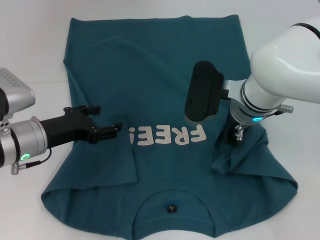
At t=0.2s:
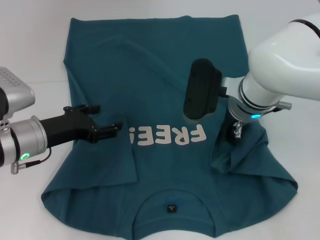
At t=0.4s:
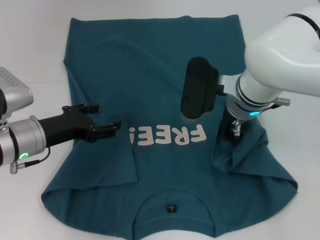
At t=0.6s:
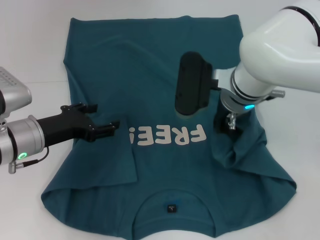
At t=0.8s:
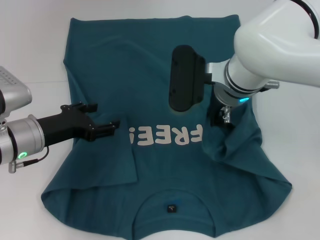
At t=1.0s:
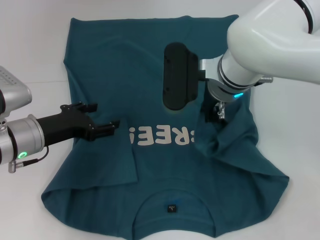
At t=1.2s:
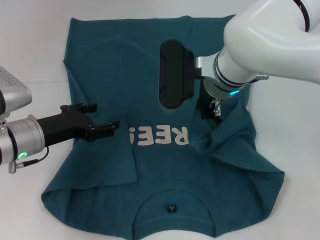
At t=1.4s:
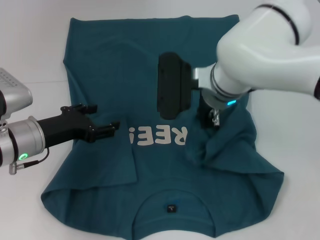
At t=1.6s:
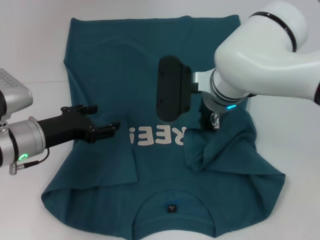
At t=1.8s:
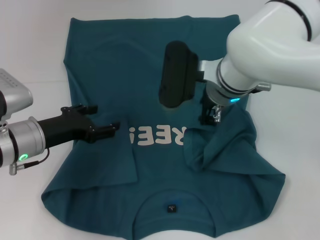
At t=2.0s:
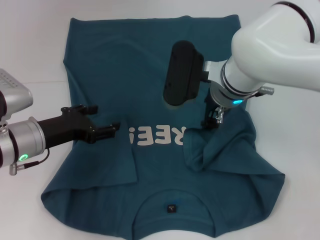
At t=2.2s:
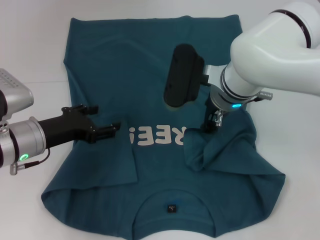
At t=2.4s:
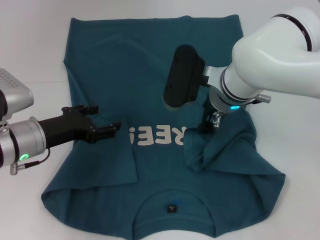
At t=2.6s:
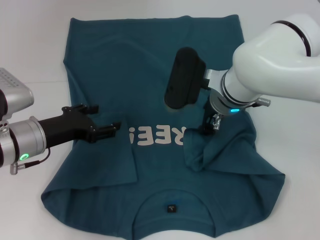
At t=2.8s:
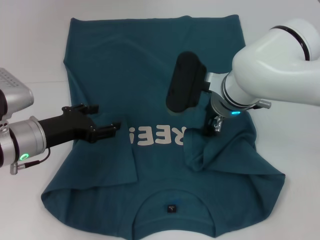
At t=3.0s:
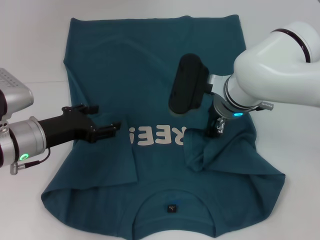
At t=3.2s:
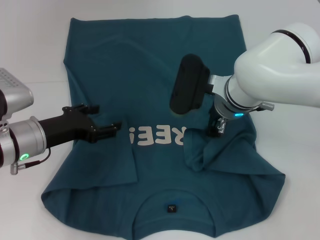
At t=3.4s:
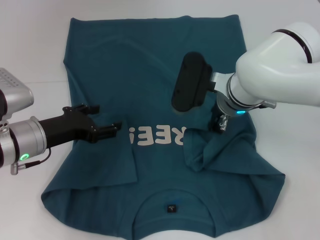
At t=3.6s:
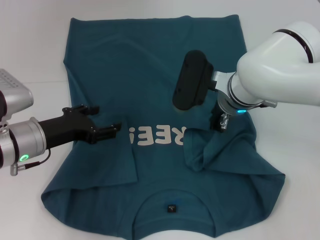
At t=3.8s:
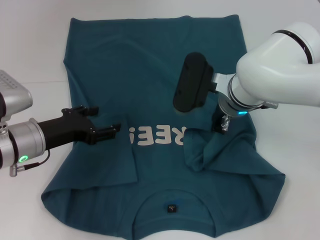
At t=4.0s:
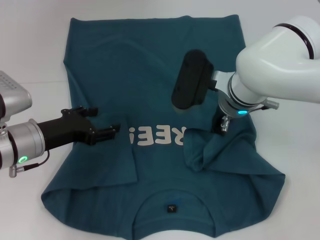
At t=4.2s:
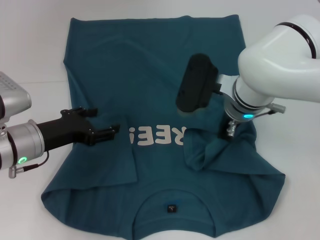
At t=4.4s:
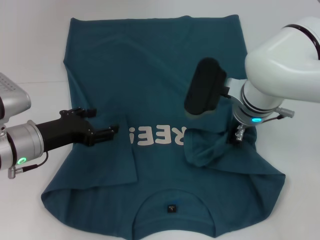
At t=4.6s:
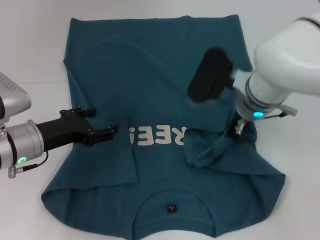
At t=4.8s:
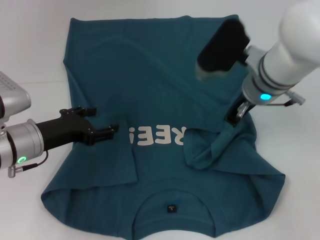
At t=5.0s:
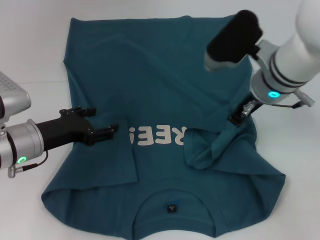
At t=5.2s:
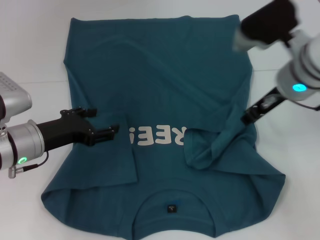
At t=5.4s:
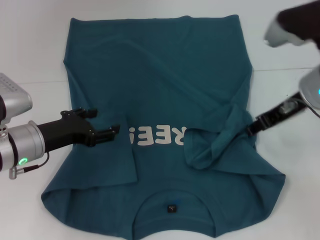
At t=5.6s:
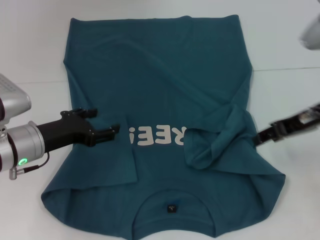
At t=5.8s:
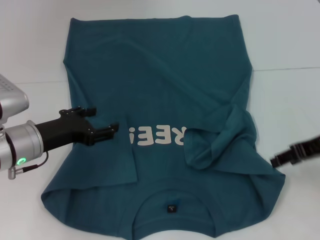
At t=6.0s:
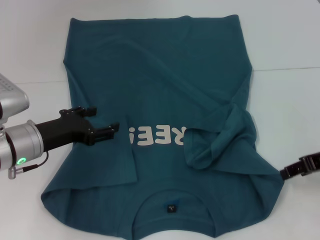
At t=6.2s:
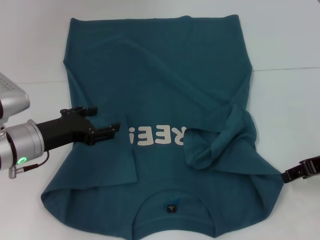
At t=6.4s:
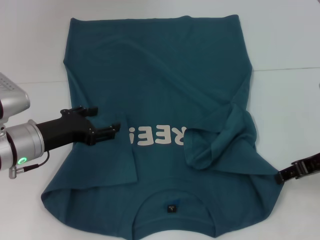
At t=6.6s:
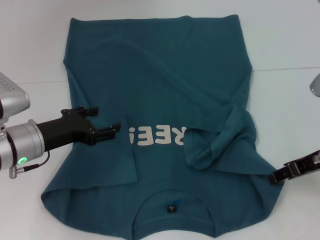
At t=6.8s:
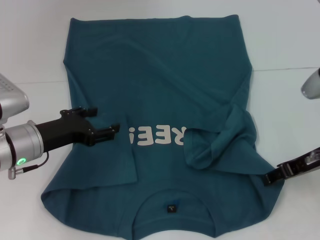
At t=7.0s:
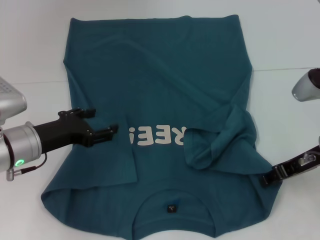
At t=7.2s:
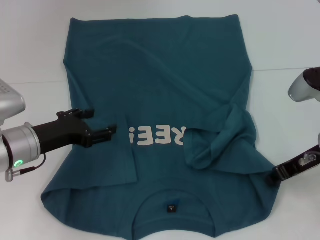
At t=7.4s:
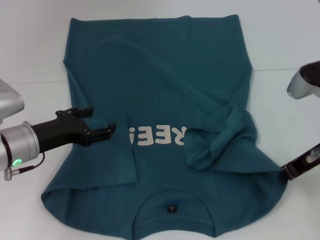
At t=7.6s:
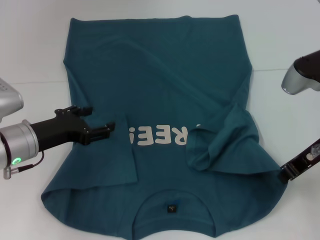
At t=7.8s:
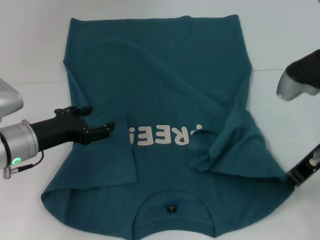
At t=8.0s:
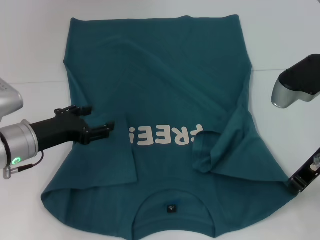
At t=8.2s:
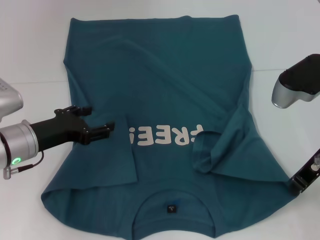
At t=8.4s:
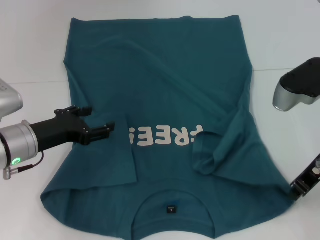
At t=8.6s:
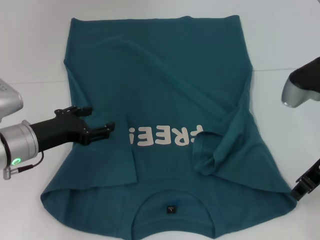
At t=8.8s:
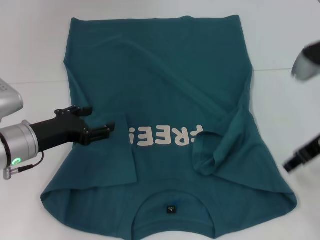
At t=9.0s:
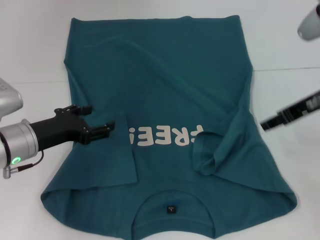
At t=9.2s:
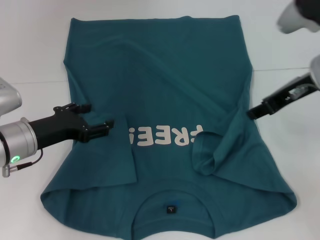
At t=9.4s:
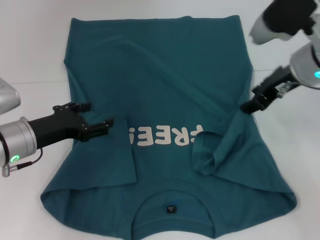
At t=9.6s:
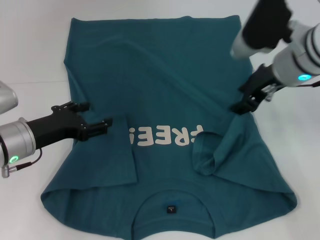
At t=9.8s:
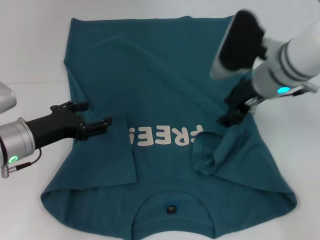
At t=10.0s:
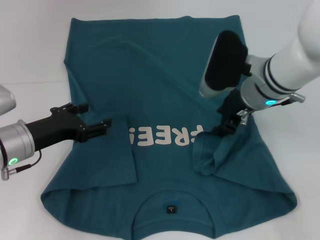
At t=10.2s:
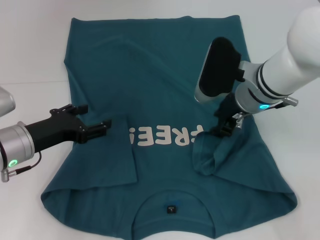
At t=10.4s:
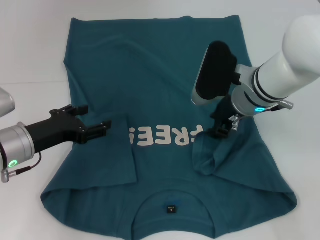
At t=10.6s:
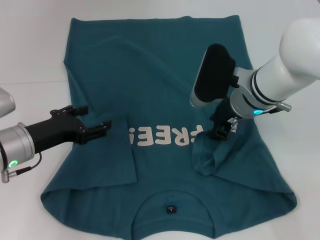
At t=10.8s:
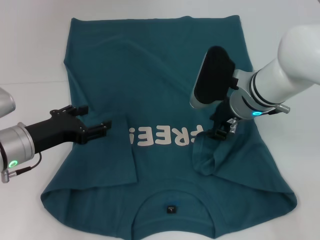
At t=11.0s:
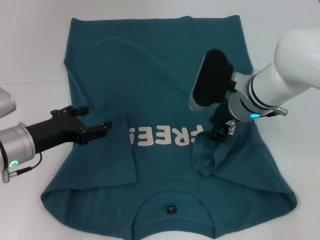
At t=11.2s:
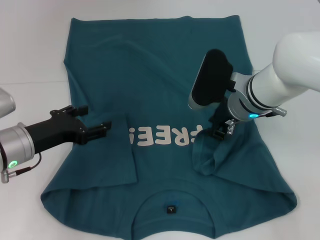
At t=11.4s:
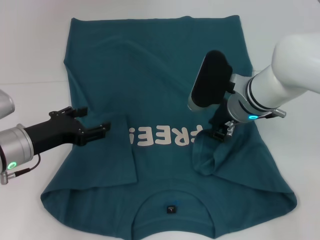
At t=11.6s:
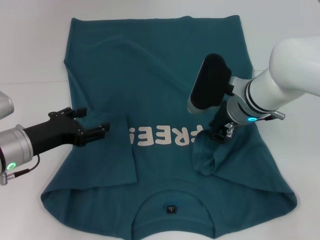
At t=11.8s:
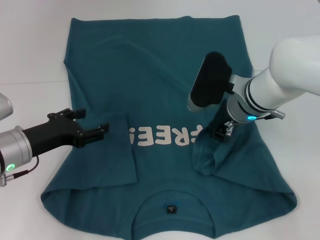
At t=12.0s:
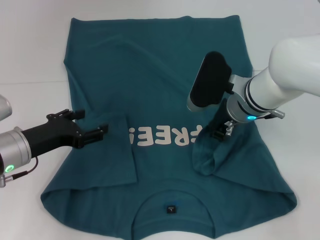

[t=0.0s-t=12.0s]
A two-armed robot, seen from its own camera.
t=0.0s to t=1.6s: The right gripper moves approximately 5 cm.
t=1.6s to t=3.0s: The right gripper opens.
t=3.0s to t=4.4s: The right gripper closes its fingers.
t=4.4s to t=6.0s: The right gripper goes approximately 20 cm to the right and backward, and opens.
t=6.0s to t=7.6s: The right gripper heads to the left, covering about 5 cm, and closes up.
t=7.6s to t=9.0s: The right gripper ends up some 5 cm from where it was, and opens up.
t=9.0s to t=10.4s: The right gripper goes some 15 cm to the left, downward and forward.
t=10.4s to t=12.0s: The grippers make only small movements.

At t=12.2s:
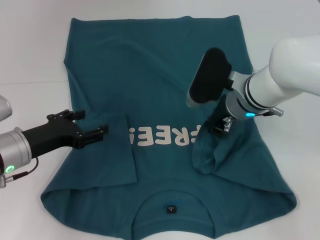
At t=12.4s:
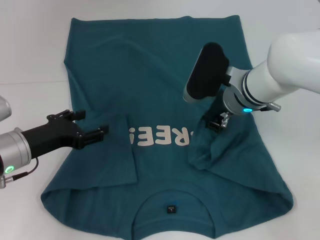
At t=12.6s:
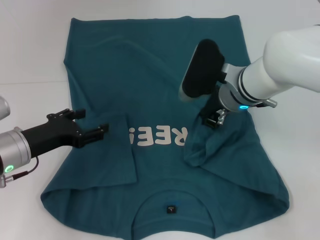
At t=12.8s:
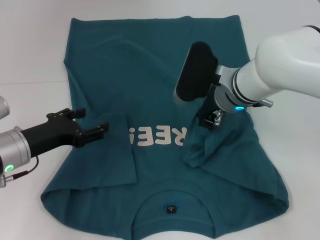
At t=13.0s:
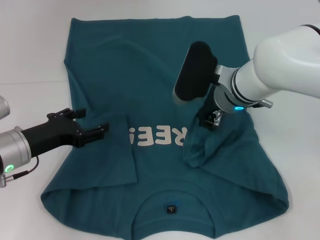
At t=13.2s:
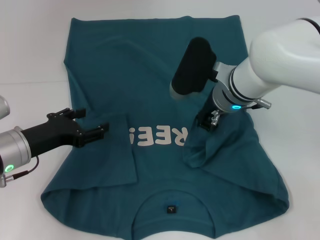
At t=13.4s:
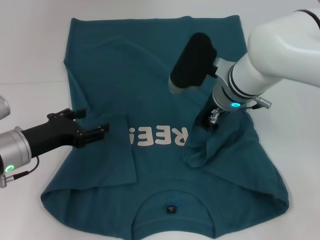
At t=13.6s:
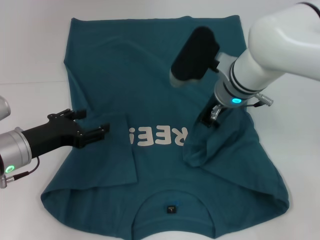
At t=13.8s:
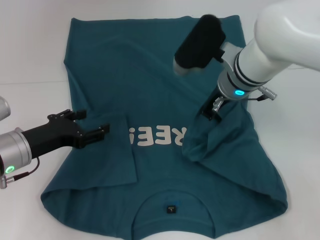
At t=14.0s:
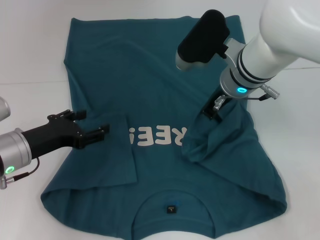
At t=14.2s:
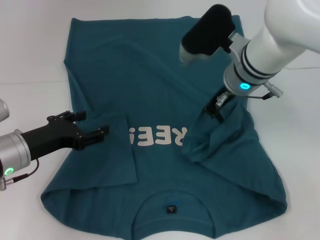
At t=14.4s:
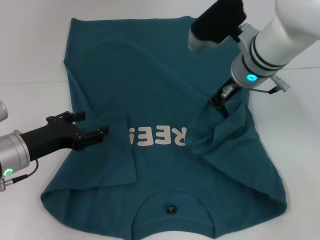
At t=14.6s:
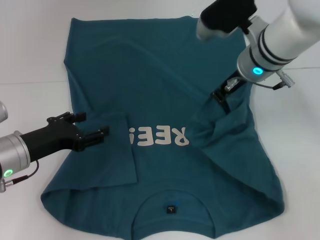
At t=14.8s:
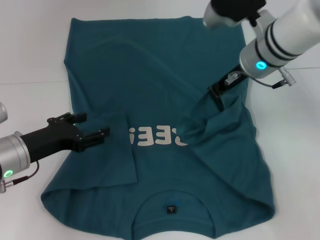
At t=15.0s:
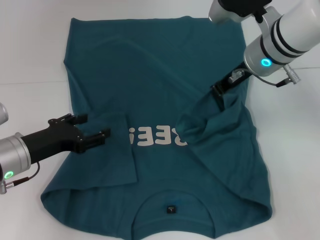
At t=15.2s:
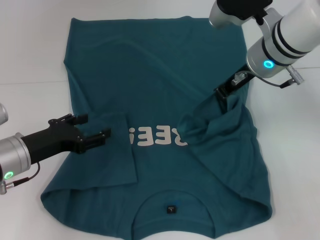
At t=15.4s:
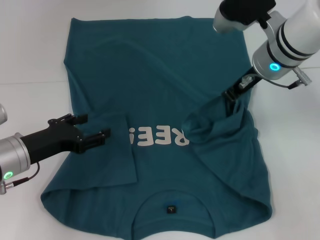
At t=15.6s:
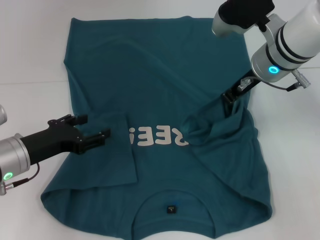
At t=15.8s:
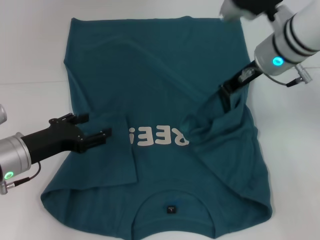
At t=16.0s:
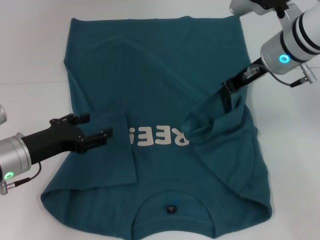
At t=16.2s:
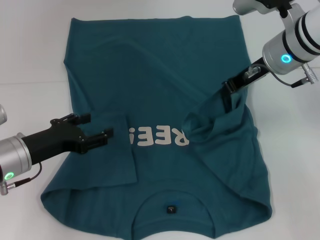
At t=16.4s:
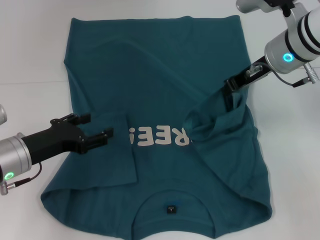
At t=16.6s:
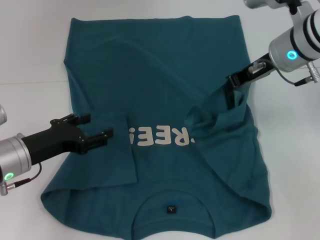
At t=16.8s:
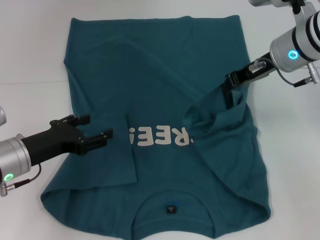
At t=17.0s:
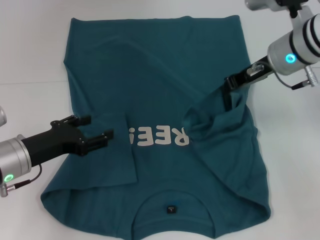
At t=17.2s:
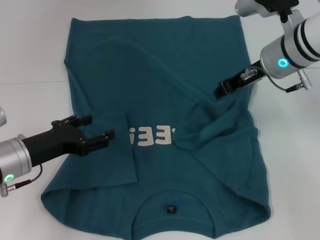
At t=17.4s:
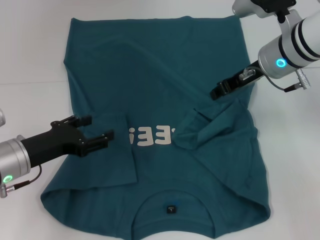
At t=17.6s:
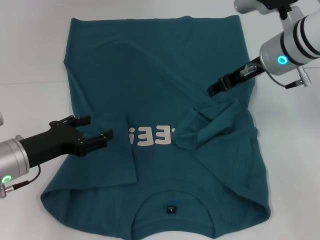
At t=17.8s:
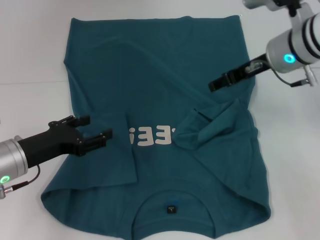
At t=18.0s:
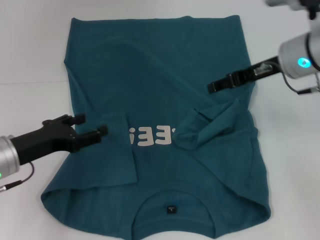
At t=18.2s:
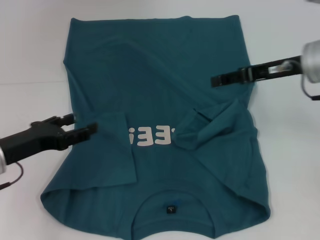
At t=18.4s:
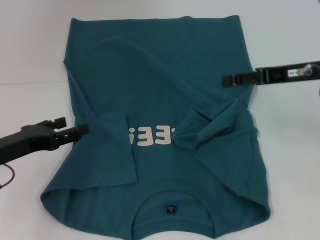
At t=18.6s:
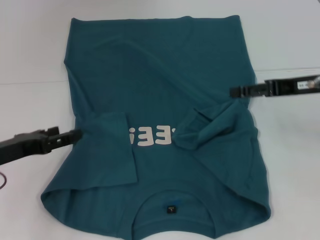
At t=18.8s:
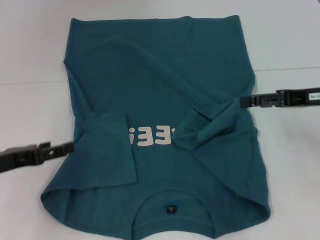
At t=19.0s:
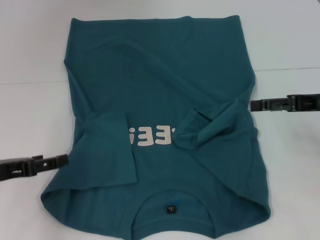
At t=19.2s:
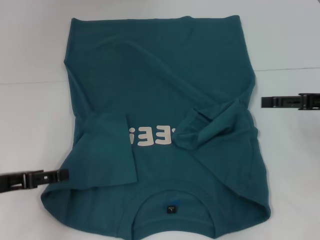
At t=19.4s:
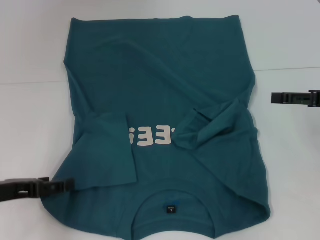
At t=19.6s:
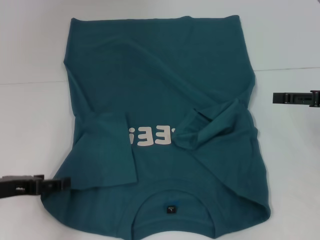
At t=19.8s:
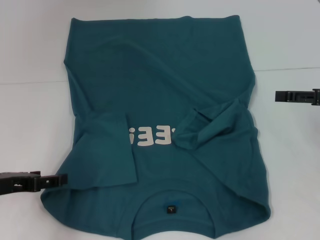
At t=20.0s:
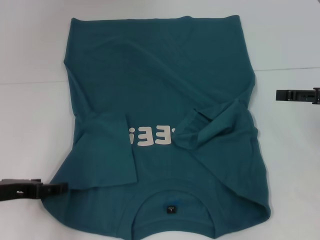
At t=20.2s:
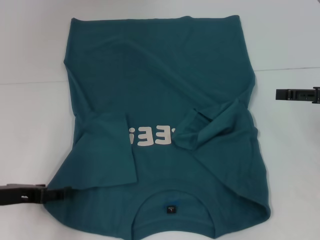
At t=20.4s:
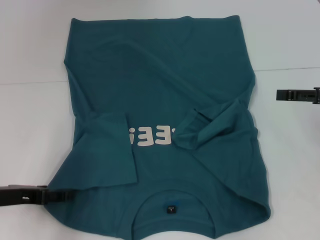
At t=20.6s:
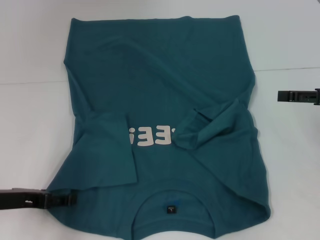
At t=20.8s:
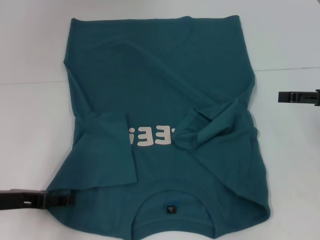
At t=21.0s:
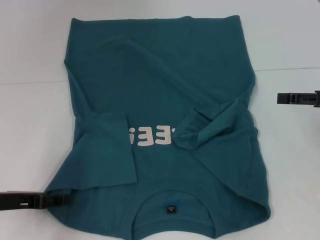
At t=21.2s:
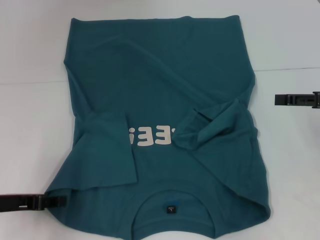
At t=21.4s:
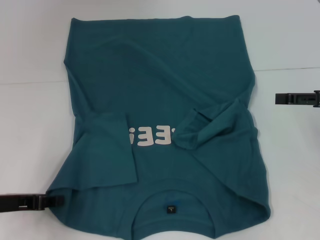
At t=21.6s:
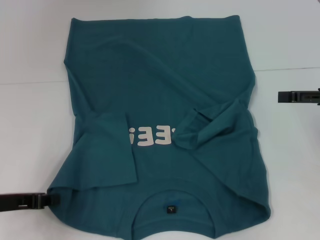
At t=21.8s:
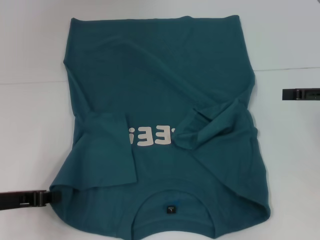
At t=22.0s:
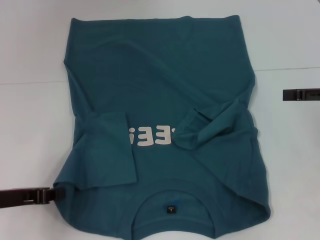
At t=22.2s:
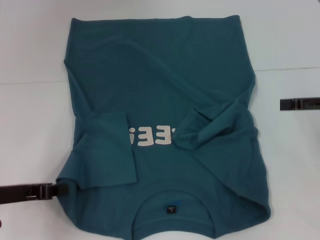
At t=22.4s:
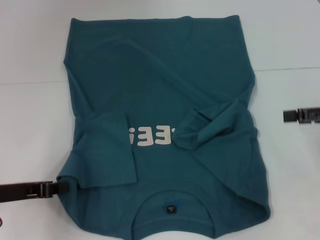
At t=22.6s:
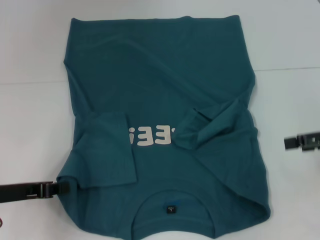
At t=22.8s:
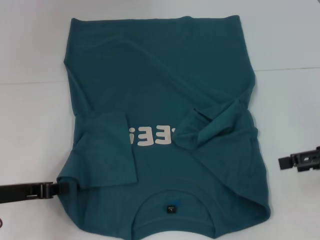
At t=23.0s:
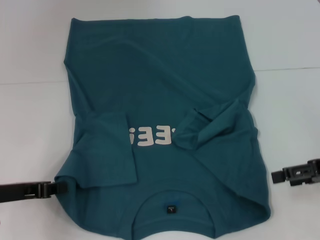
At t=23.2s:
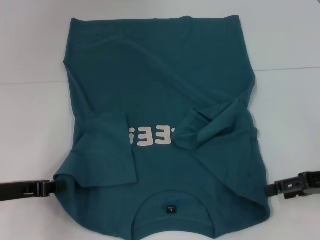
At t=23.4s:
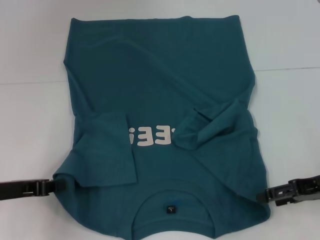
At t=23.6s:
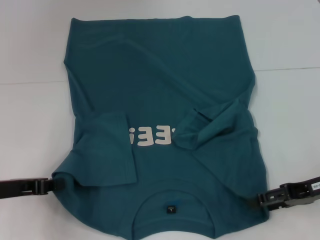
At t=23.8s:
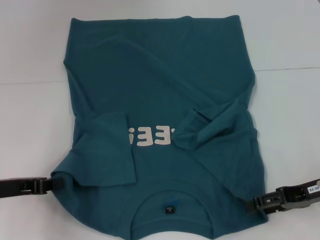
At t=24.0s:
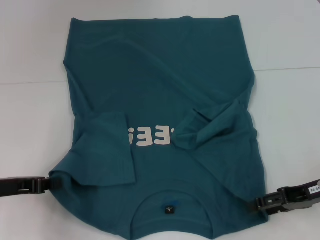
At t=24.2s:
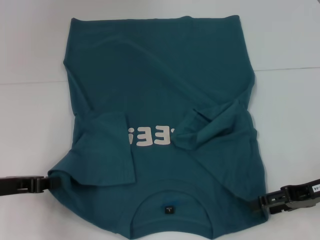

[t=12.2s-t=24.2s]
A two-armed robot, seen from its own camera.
Step, t=12.2s to t=18.0s: Fold the bottom right sleeve to the right.
Step, t=18.2s to t=22.4s: Grab the bottom left corner with your left hand.
t=12.2s to t=13.8s: The right gripper shifts by approximately 5 cm.
t=13.8s to t=15.2s: The right gripper moves about 5 cm.
t=15.2s to t=16.6s: The grippers make only small movements.
t=16.6s to t=18.2s: The right gripper heads backward, covering approximately 5 cm, and opens its fingers.
t=18.2s to t=19.8s: The right gripper heads to the right and backward, covering roughly 10 cm.
t=19.8s to t=21.2s: The grippers move only a little.
t=21.2s to t=22.6s: The left gripper closes.
t=22.6s to t=24.2s: The right gripper moves downward, some 10 cm.
